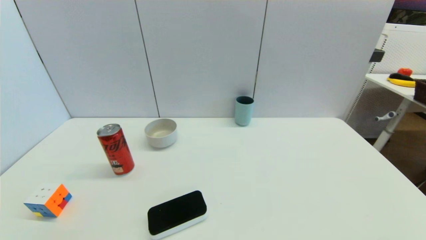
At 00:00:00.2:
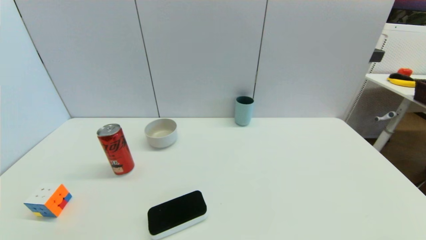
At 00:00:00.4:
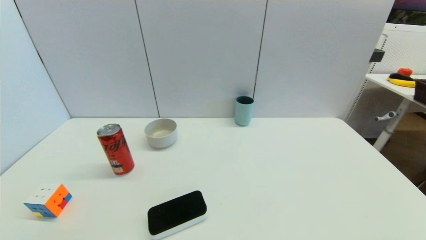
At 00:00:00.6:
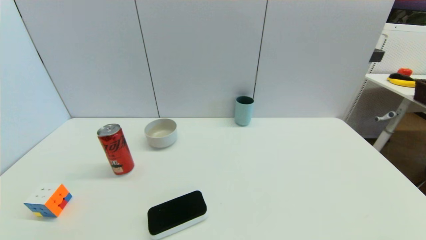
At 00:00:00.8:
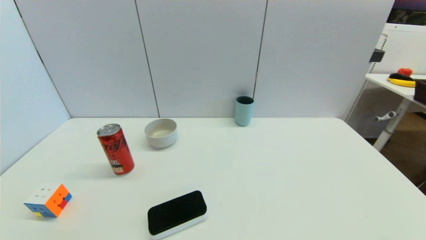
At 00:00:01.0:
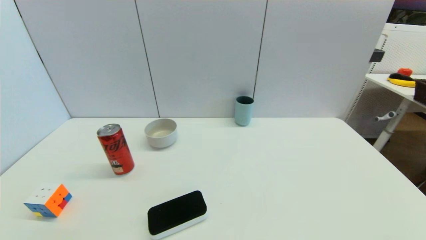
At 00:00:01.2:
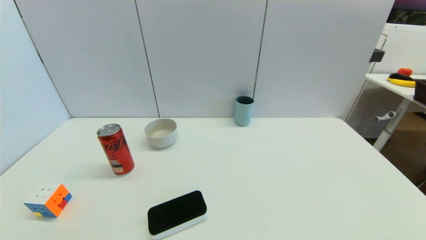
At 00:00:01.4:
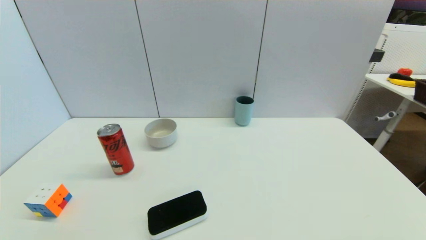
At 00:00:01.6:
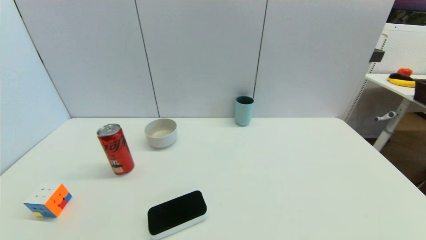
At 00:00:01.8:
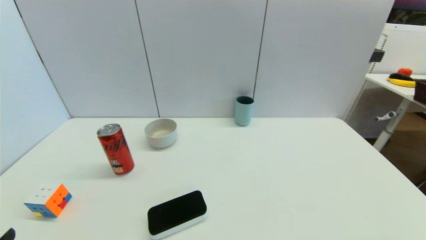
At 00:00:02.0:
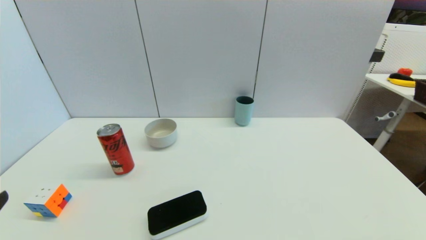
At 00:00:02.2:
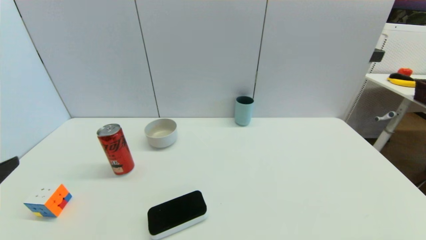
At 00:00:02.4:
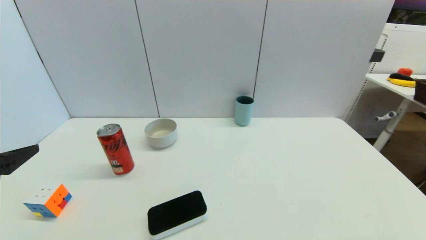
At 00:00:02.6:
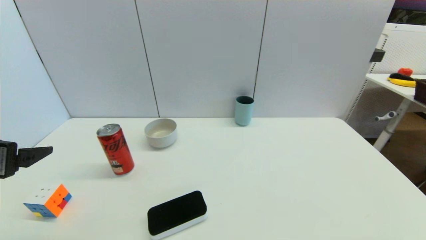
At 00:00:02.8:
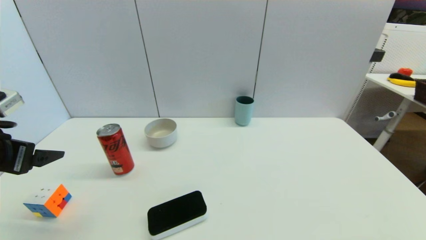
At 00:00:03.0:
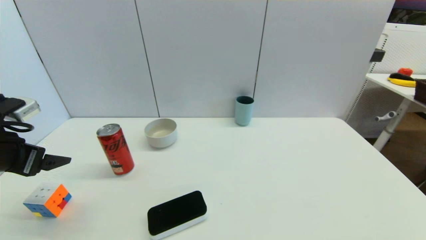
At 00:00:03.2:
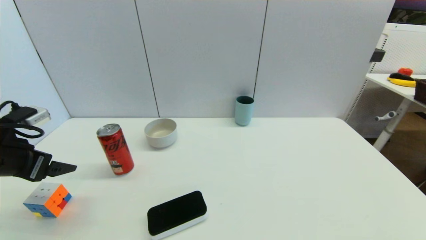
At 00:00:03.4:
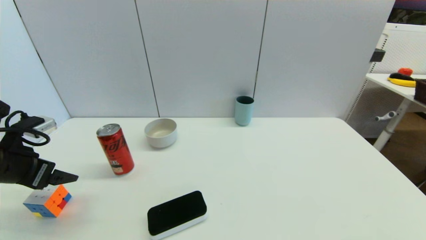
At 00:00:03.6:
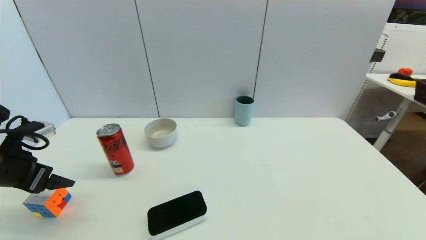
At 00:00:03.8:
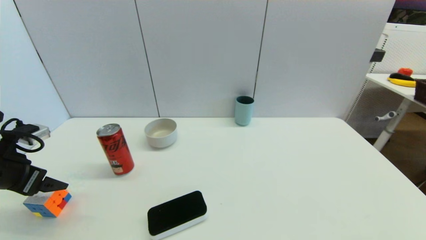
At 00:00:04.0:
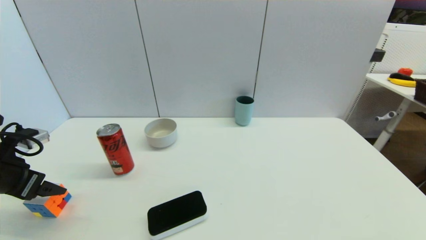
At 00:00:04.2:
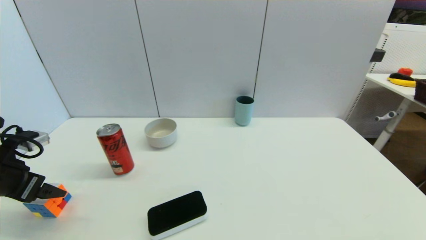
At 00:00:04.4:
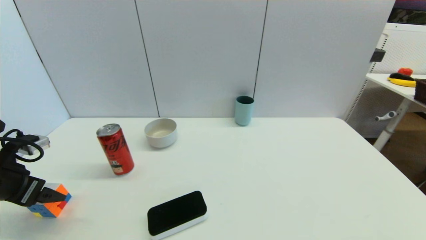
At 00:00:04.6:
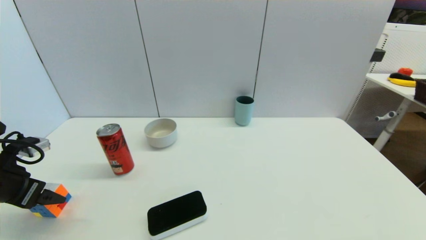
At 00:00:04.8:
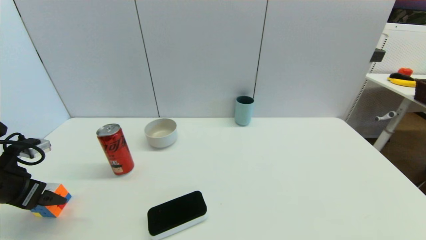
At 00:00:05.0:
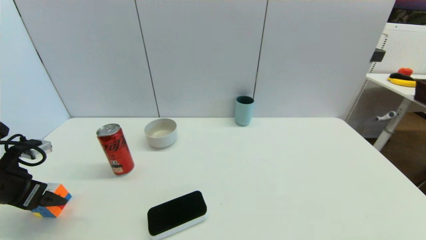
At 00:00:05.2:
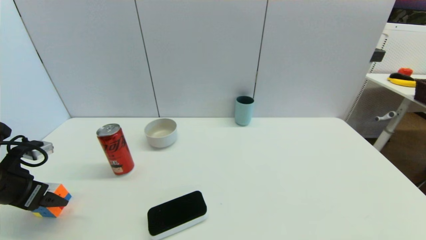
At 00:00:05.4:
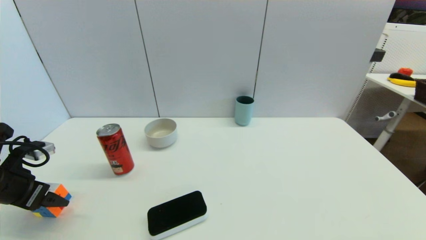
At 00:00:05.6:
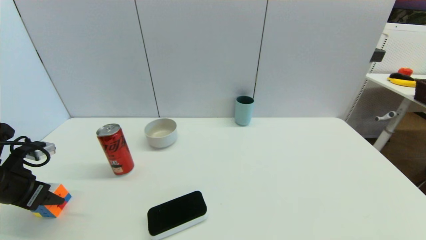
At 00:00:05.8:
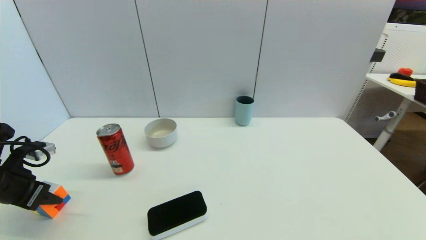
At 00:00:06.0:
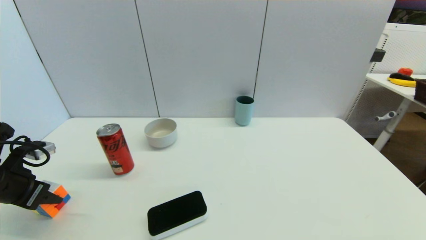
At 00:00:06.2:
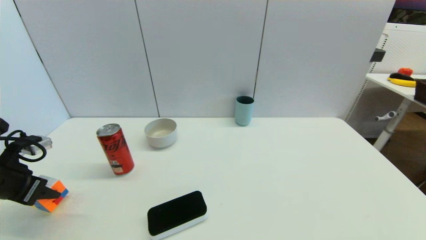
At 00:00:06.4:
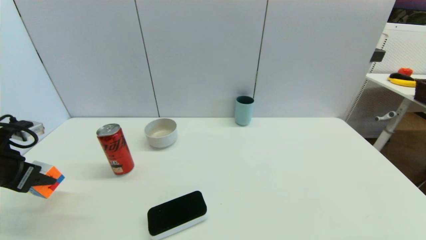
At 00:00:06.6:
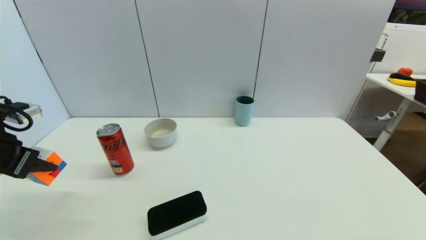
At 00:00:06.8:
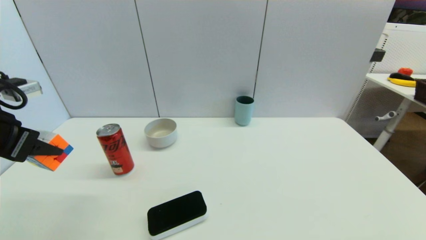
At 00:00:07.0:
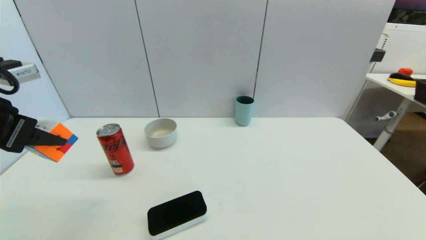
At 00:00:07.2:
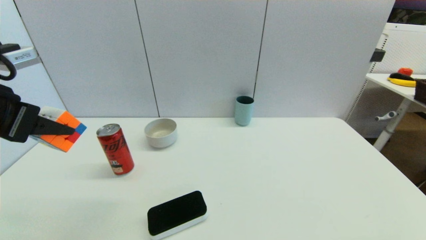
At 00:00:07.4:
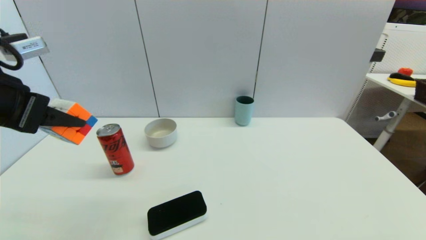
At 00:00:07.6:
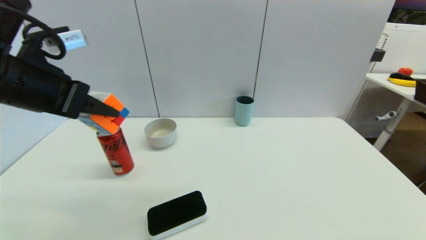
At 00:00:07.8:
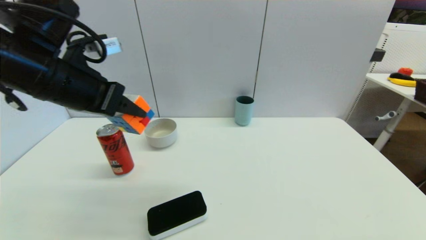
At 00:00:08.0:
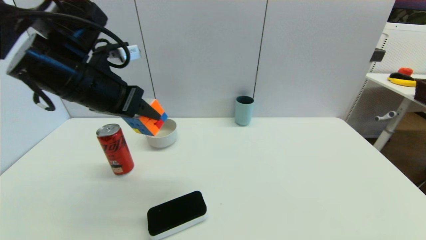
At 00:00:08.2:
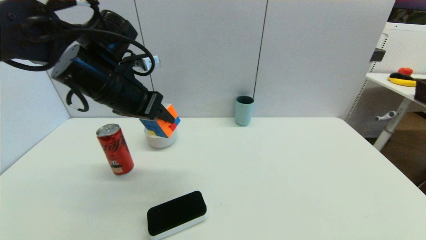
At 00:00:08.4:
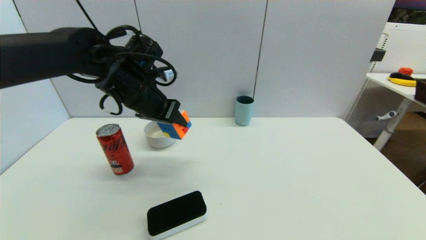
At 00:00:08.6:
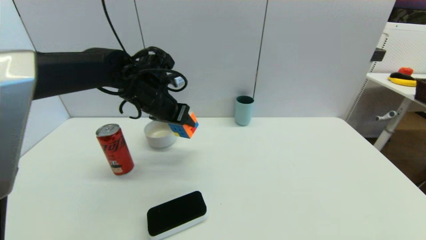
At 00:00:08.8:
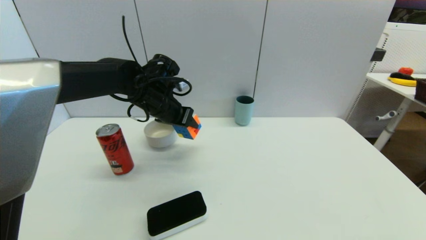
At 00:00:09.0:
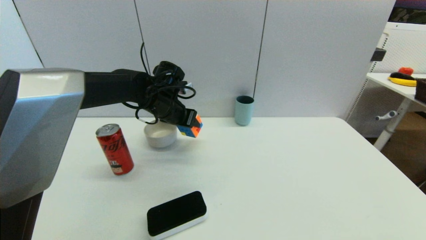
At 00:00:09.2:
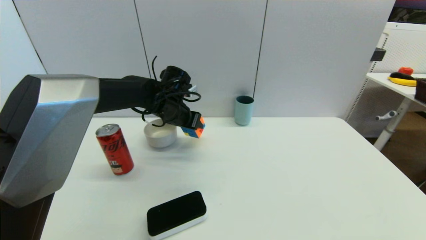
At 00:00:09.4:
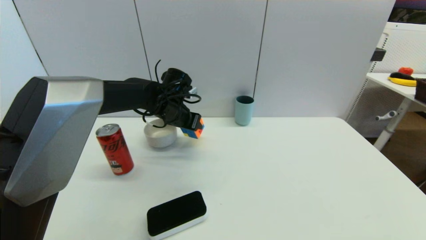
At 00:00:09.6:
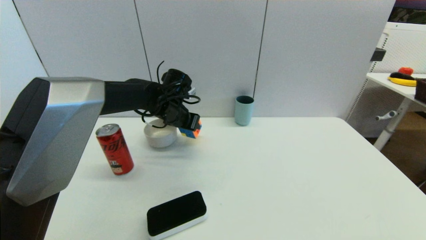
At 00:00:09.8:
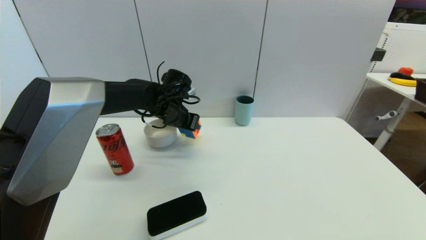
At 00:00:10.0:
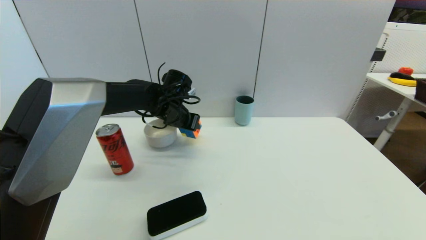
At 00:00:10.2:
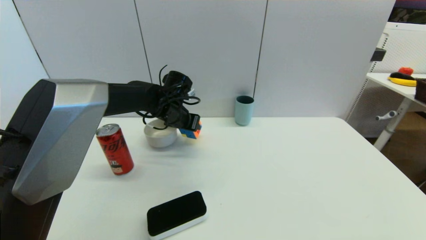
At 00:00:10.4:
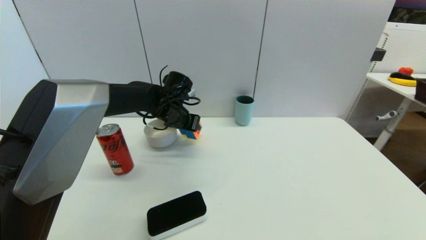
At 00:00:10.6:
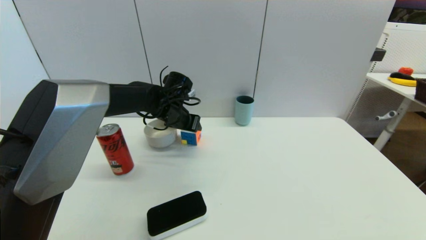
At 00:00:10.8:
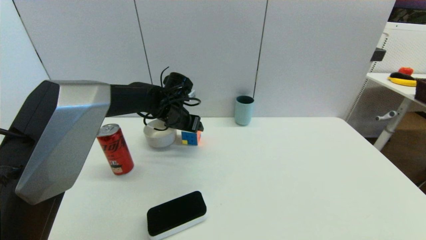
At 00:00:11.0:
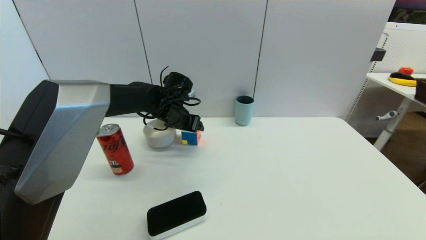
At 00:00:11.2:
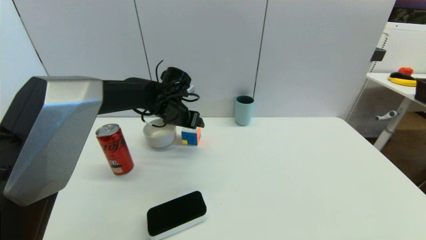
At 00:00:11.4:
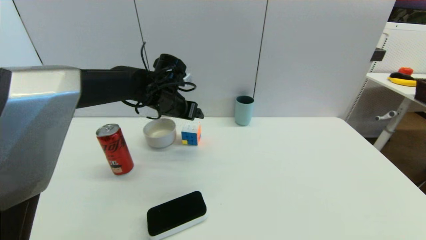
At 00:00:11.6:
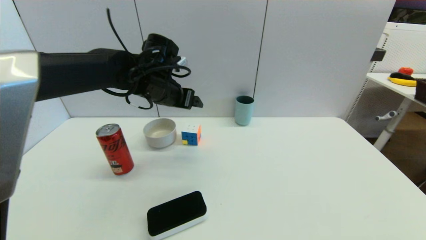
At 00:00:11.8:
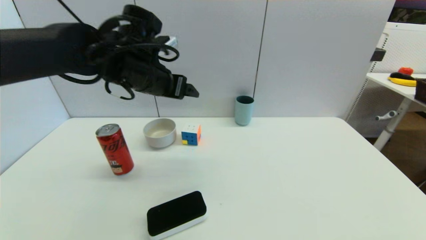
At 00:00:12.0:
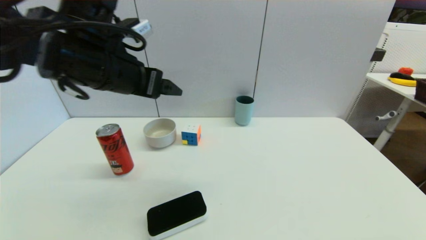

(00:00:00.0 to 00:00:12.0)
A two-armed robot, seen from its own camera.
Step, 00:00:01.8 - 00:00:06.0: Grasp the magic cube with left gripper.
Step, 00:00:06.2 - 00:00:11.2: Place the magic cube on the table with left gripper.
00:00:01.6 - 00:00:03.0: The left gripper travels forward and upward by roughly 25 cm.
00:00:03.0 - 00:00:04.4: The left gripper moves downward, some 5 cm.
00:00:04.4 - 00:00:06.0: The left gripper closes.
00:00:06.0 - 00:00:07.6: The left gripper heads upward and to the right, covering roughly 25 cm.
00:00:07.6 - 00:00:09.0: The left gripper moves forward, downward and to the right, about 25 cm.
00:00:09.0 - 00:00:10.4: The grippers stay close to where they were, moving slightly.
00:00:10.4 - 00:00:12.0: The left gripper is displaced backward, upward and to the left by roughly 25 cm, and opens its fingers.

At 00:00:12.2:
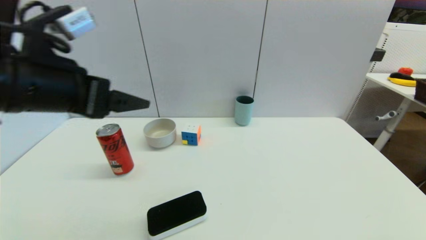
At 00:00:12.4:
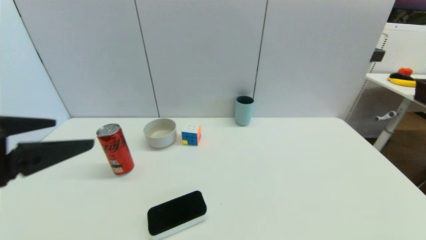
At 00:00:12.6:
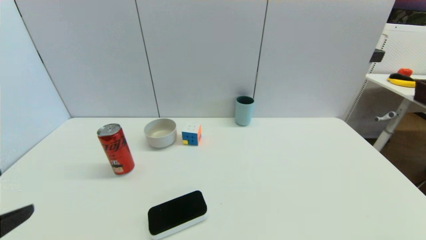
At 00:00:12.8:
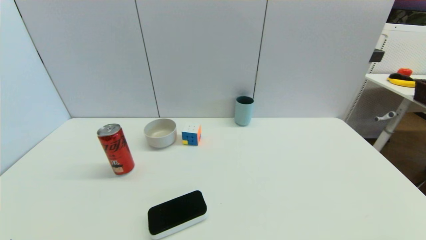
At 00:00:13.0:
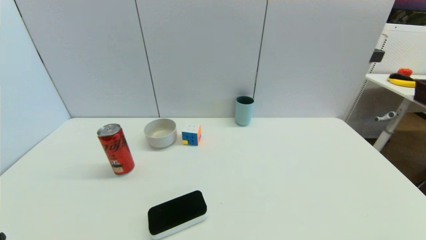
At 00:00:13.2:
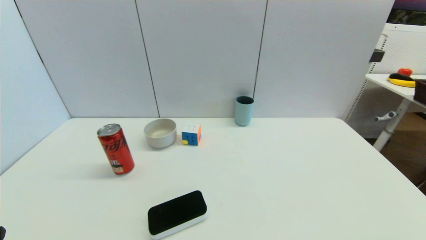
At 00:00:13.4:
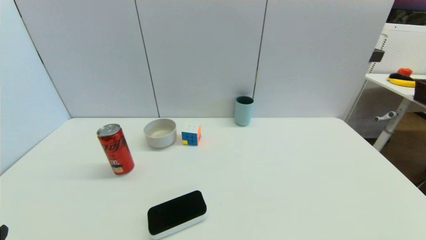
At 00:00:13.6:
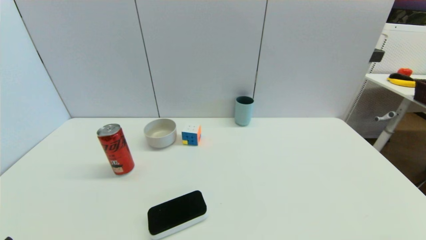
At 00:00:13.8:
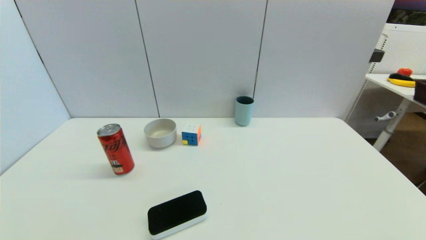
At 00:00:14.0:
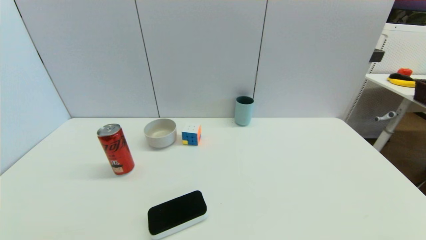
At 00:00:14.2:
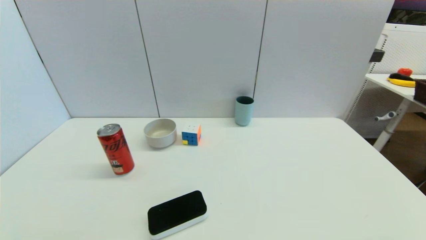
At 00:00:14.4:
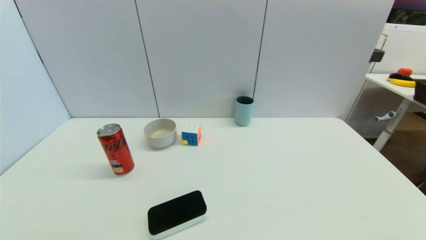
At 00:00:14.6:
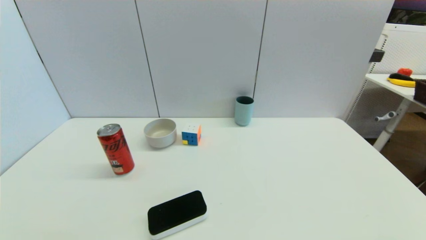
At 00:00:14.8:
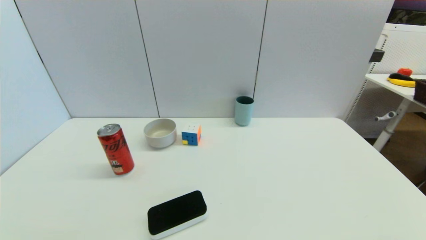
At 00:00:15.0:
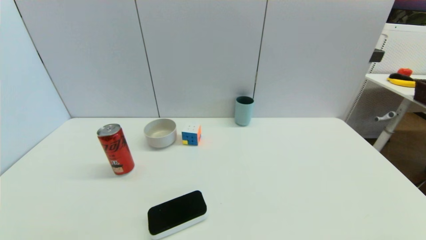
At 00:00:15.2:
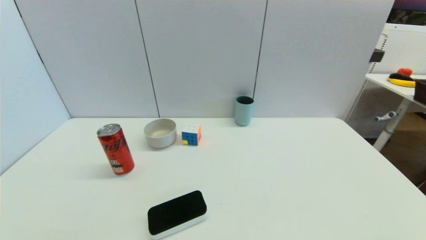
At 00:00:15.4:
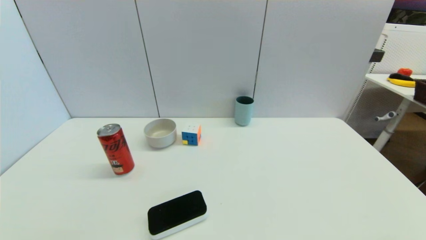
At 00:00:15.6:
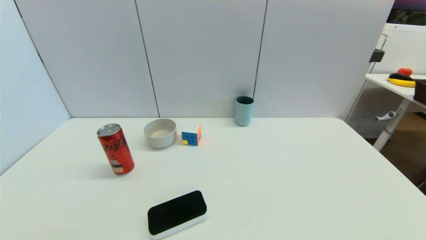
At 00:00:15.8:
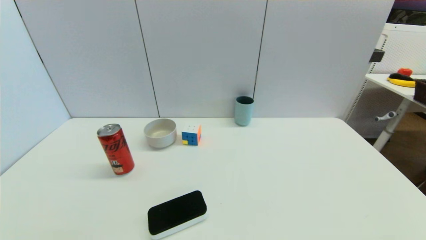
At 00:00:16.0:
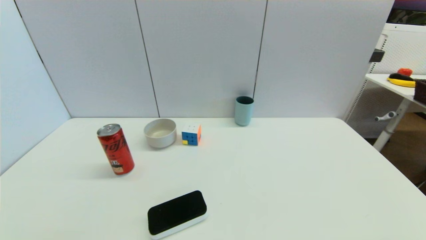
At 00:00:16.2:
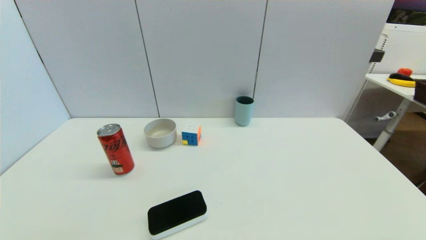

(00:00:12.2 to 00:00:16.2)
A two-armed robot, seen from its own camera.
00:00:12.2 - 00:00:13.6: The left gripper heads backward, downward and to the left, covering roughly 25 cm.
00:00:14.8 - 00:00:16.2: Neither gripper changes place.
